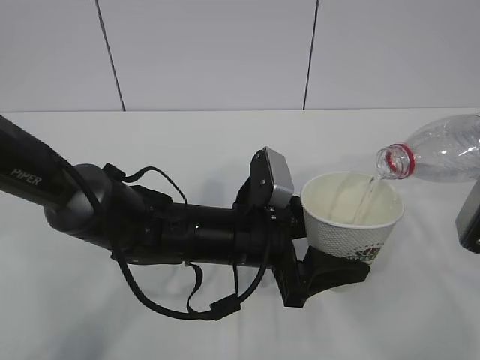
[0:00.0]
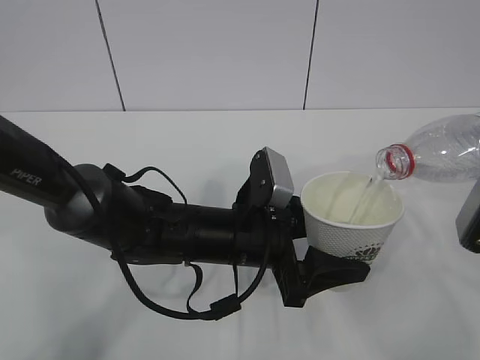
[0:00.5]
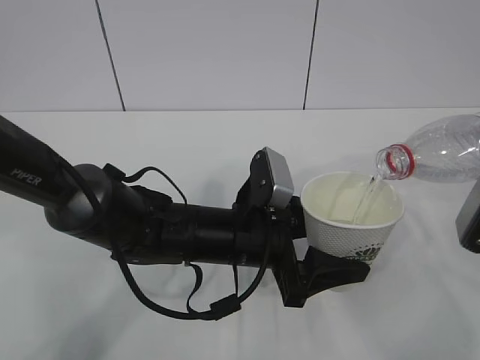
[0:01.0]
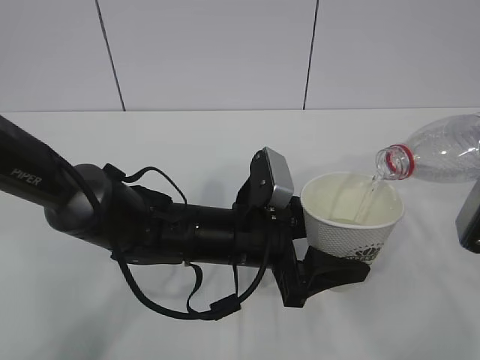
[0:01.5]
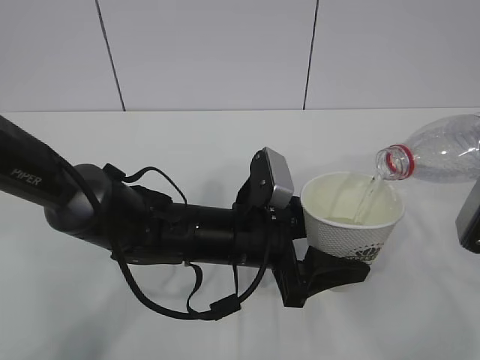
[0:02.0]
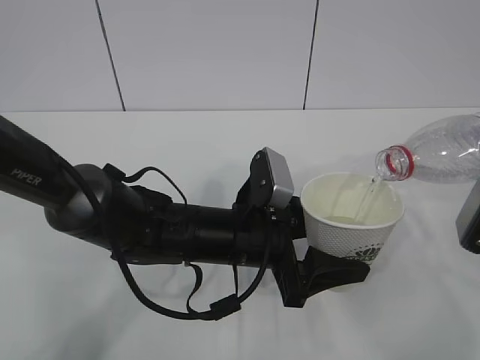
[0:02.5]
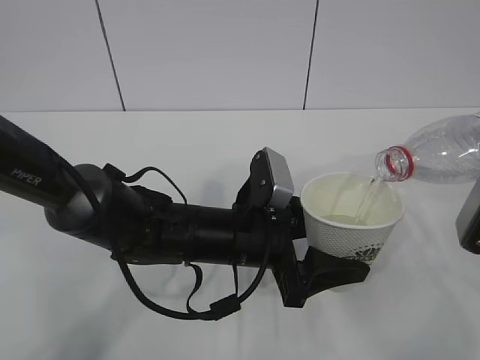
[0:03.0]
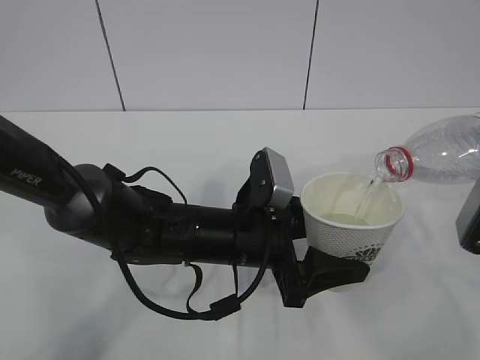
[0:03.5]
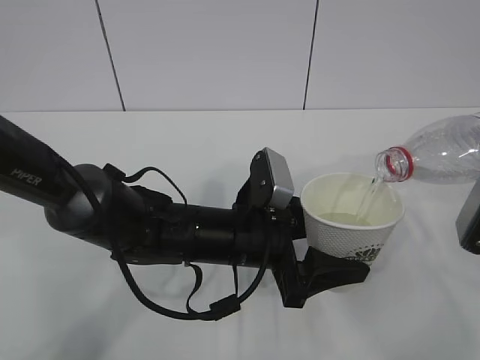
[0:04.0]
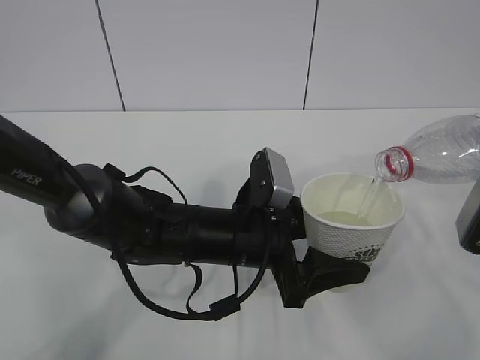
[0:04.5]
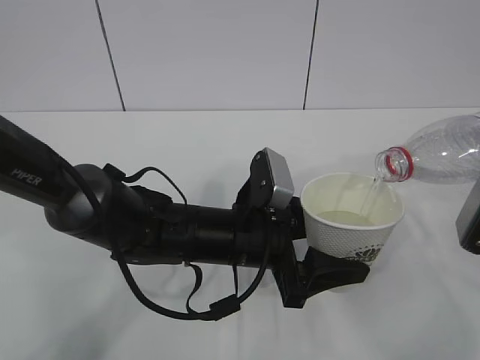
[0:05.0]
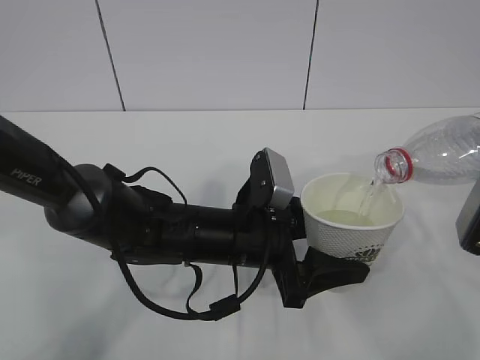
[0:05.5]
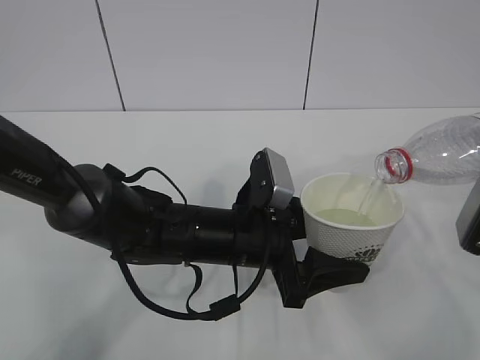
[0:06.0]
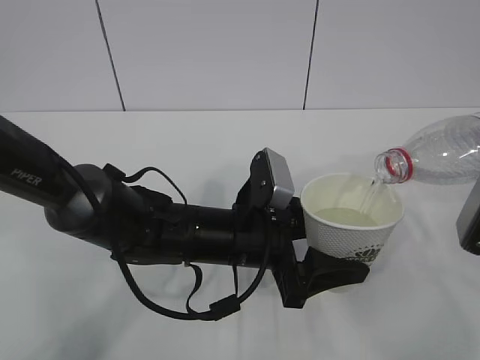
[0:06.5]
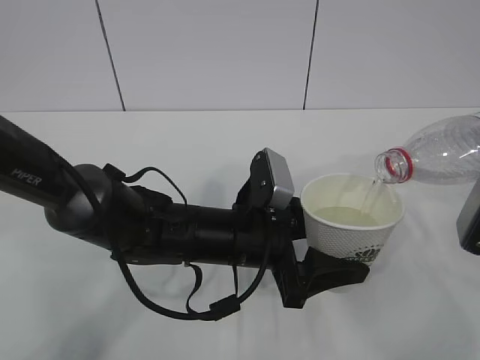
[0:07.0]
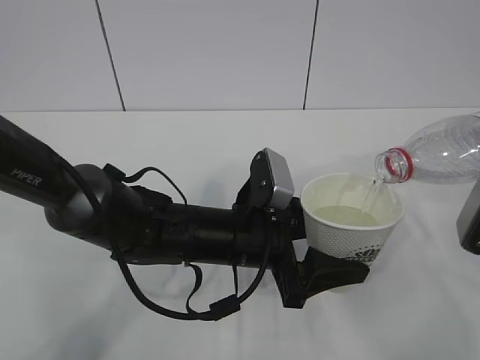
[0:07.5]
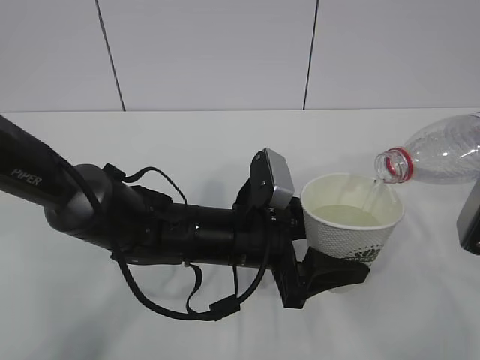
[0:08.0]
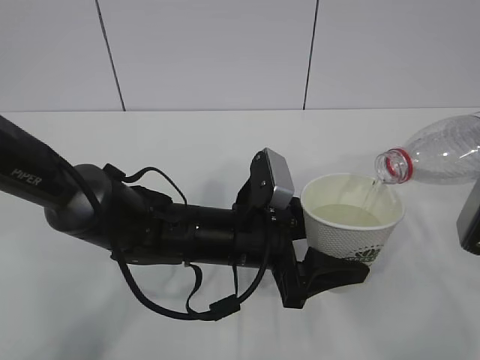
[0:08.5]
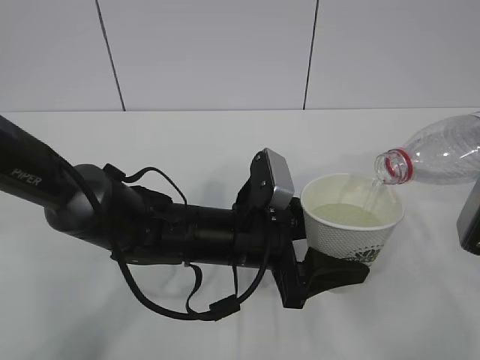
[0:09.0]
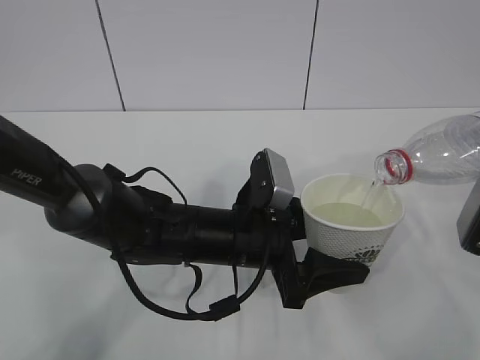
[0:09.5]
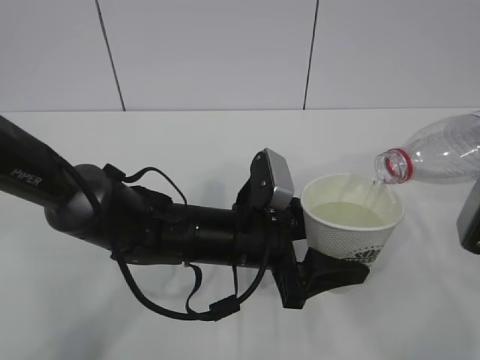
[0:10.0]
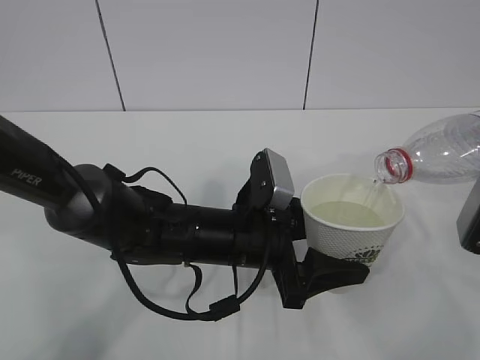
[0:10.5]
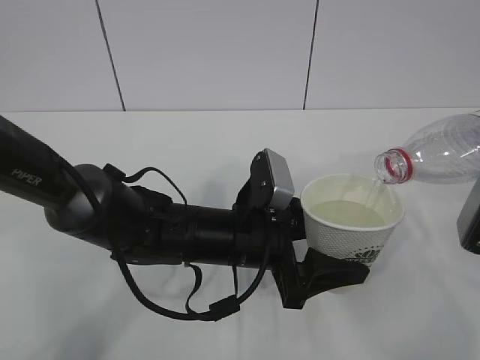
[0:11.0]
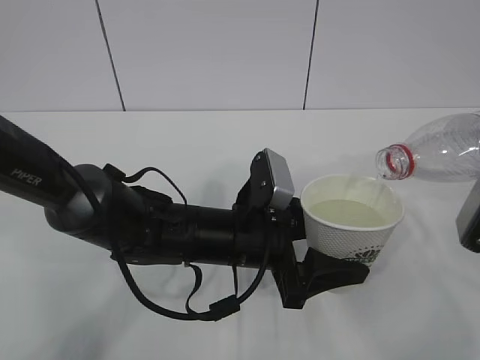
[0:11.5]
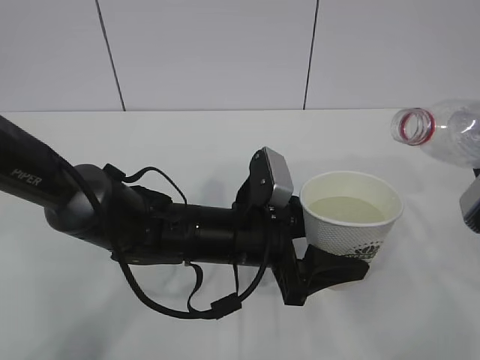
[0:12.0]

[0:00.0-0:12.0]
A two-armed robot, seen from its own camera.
0:00.0 to 0:10.0: Both grippers stay about where they are.

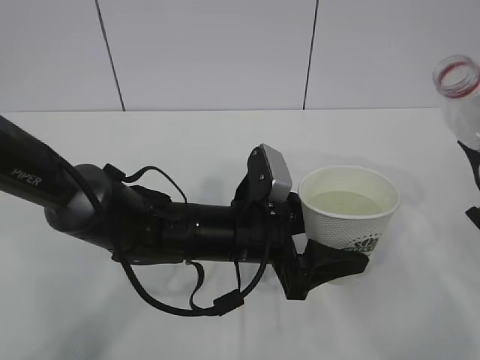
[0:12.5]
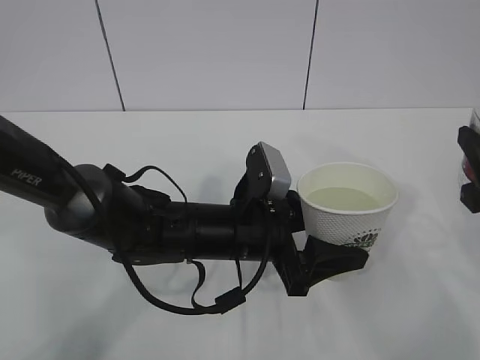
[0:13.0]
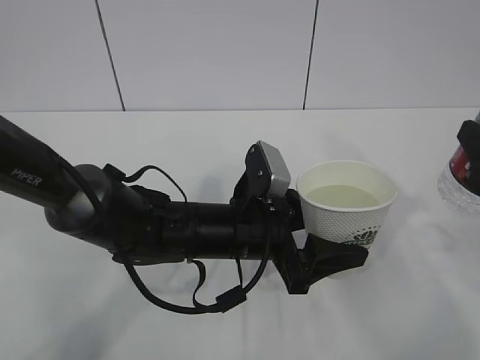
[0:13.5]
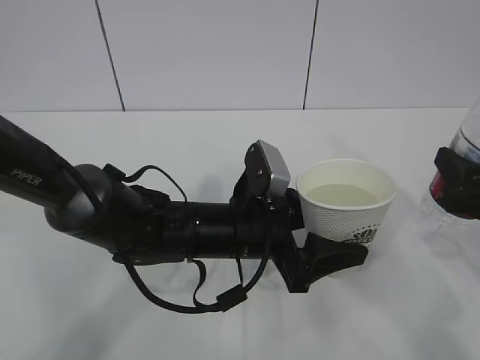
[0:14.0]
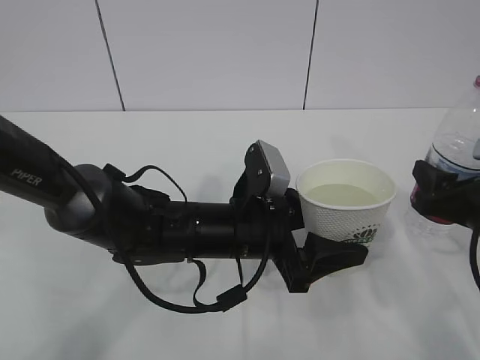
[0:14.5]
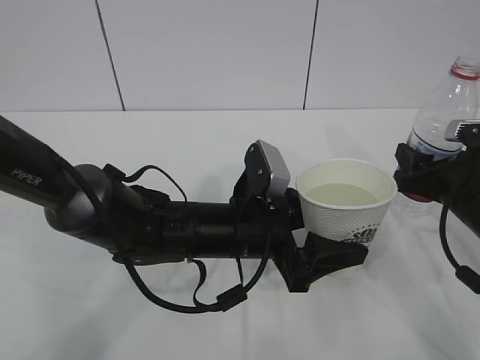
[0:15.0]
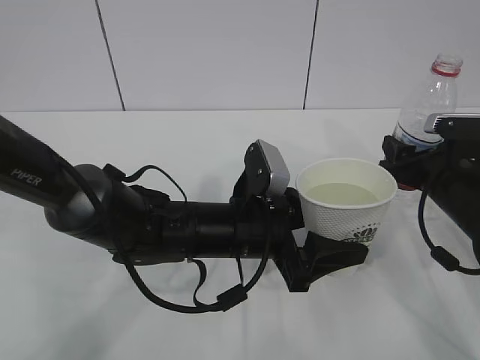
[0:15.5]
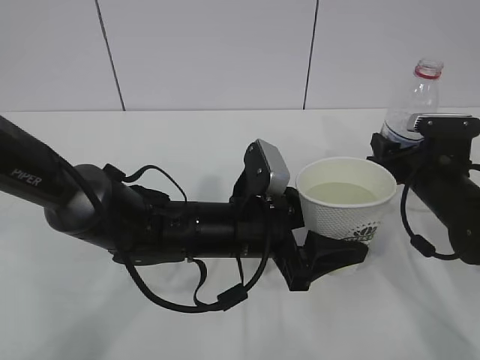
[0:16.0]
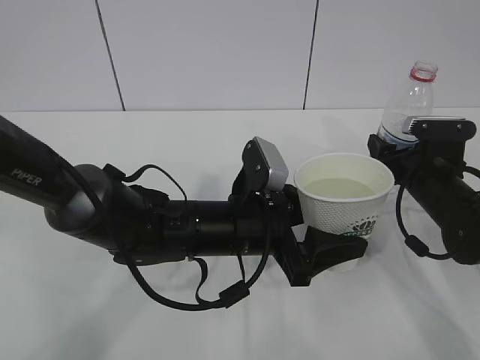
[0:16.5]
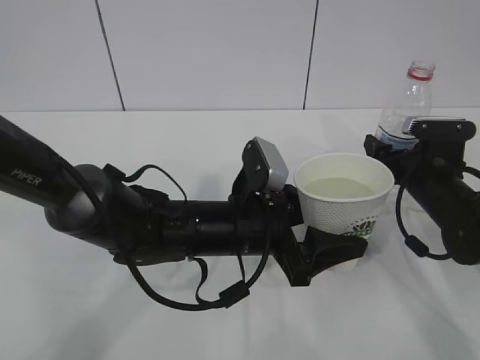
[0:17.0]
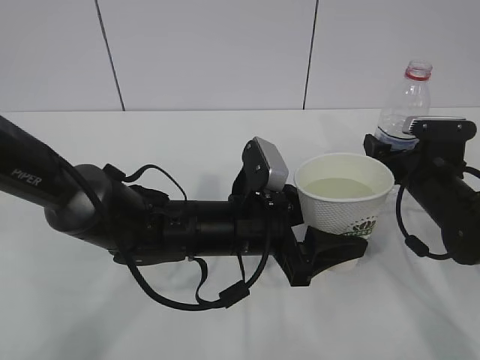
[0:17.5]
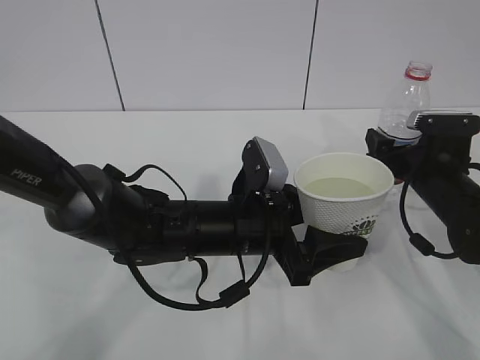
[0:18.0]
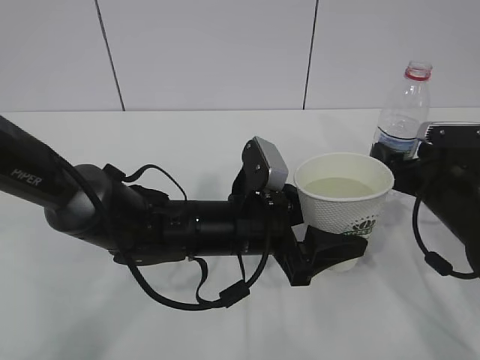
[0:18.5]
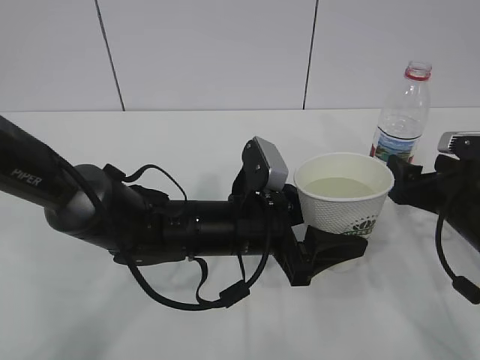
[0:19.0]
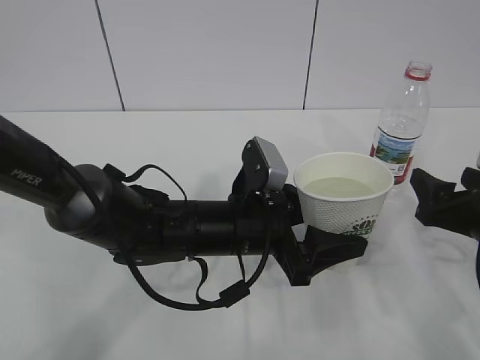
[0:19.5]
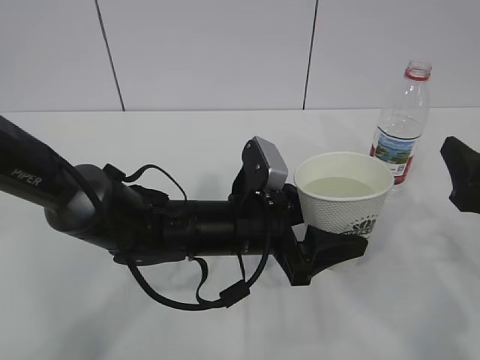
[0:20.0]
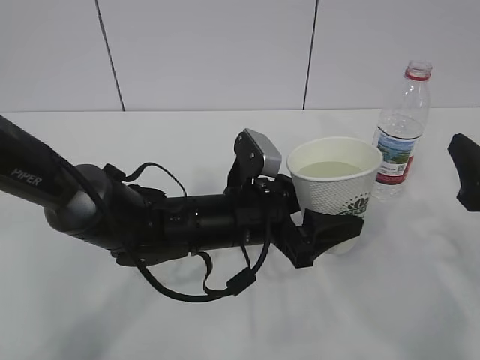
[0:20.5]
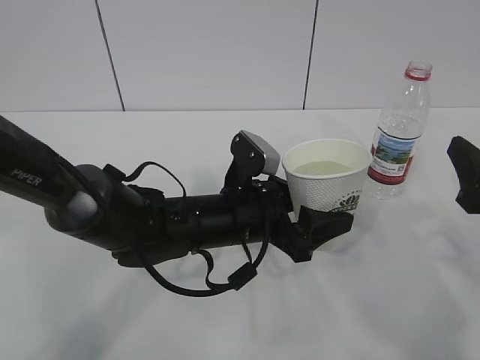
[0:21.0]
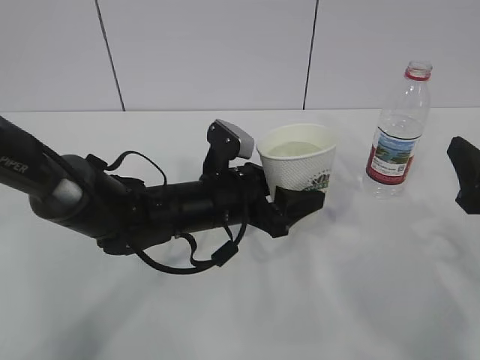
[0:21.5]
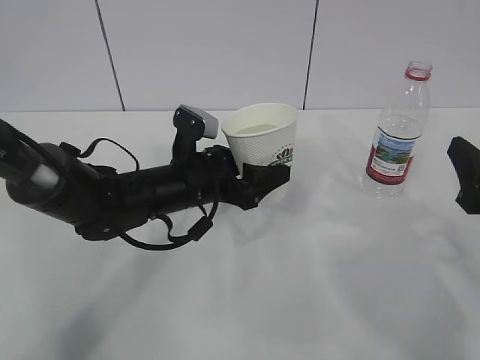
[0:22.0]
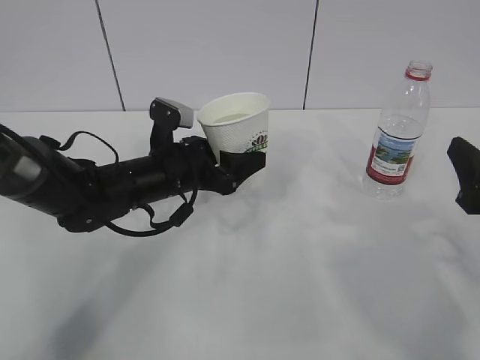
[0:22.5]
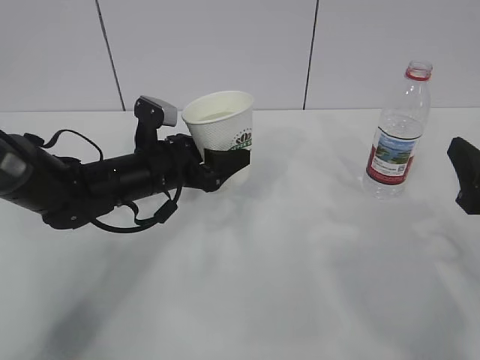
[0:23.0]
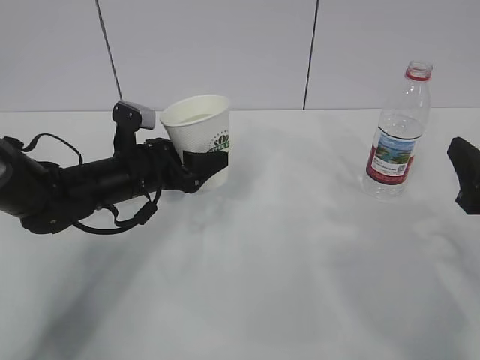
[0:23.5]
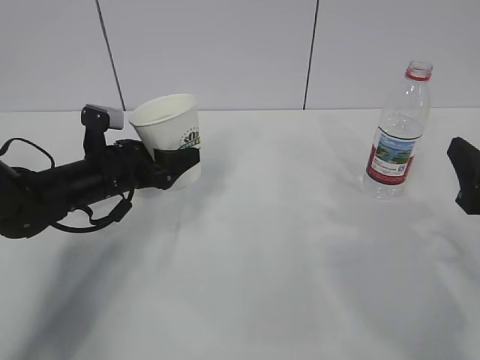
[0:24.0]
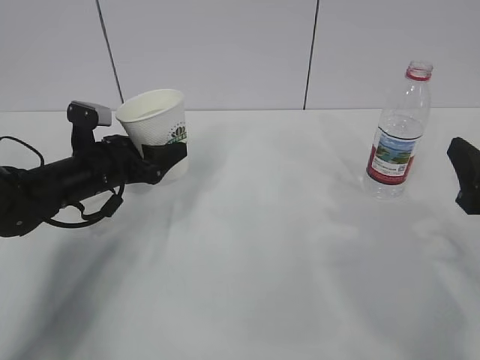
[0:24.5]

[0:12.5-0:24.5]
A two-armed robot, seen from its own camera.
0:12.5 to 0:14.5: The right gripper goes some 5 cm downward.
0:14.5 to 0:16.5: The right gripper moves forward and downward, some 15 cm.
0:16.5 to 0:18.5: The right gripper opens.
0:18.5 to 0:20.5: The right gripper travels backward and upward by about 15 cm.
0:20.5 to 0:22.5: The left gripper heads to the left and forward, covering roughly 10 cm.
0:22.5 to 0:24.5: The left gripper moves to the left, about 10 cm.

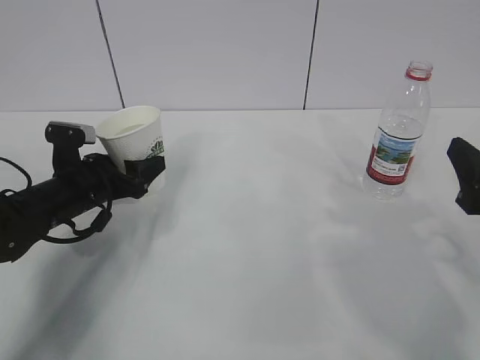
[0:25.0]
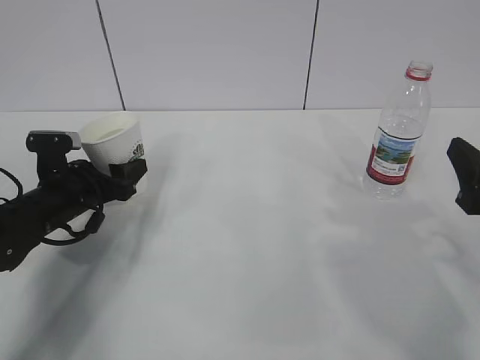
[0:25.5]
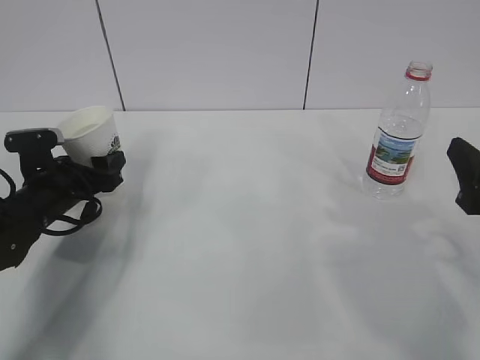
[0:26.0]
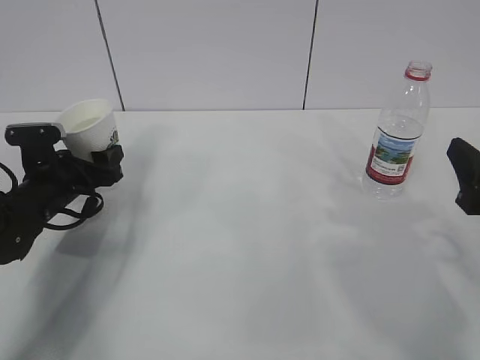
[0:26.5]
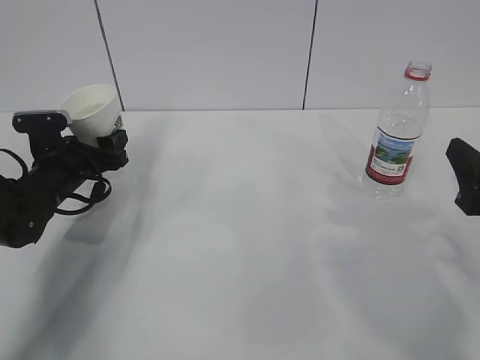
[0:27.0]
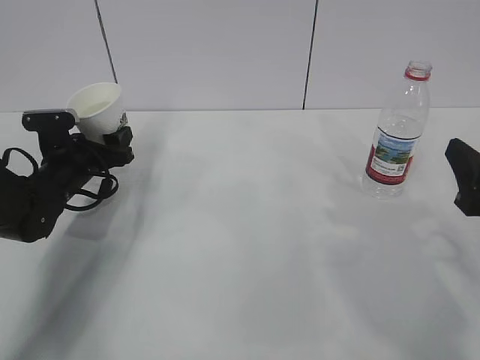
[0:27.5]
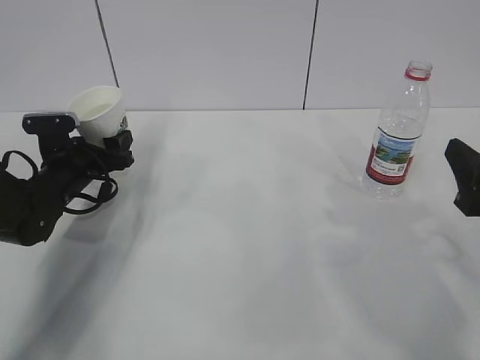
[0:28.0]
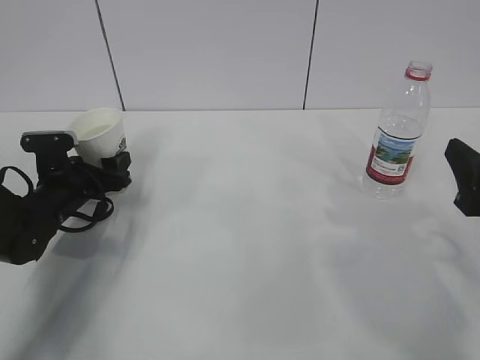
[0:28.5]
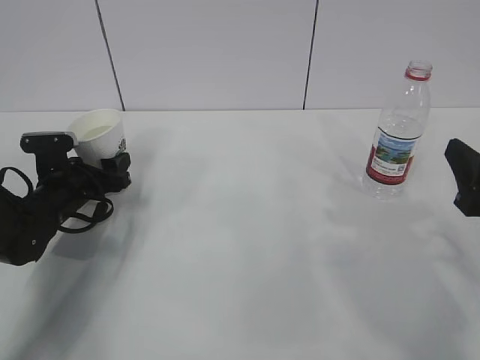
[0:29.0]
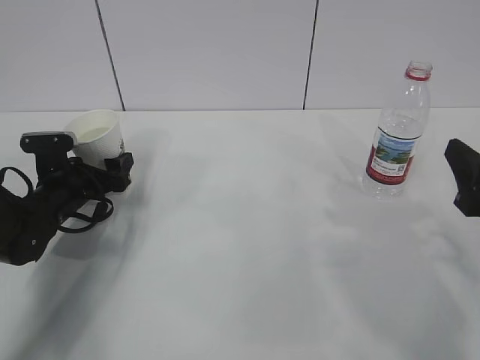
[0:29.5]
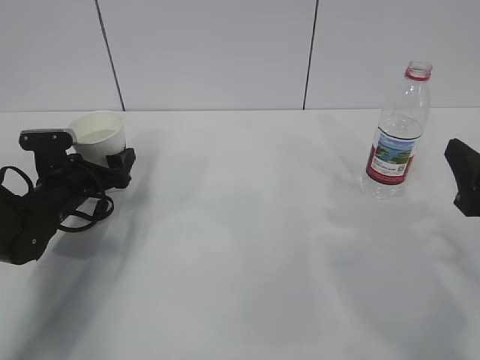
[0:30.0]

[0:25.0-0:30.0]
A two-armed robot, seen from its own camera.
0:25.0 to 0:27.5: The left gripper shifts by roughly 5 cm.
0:27.5 to 0:30.0: The left gripper opens up.
